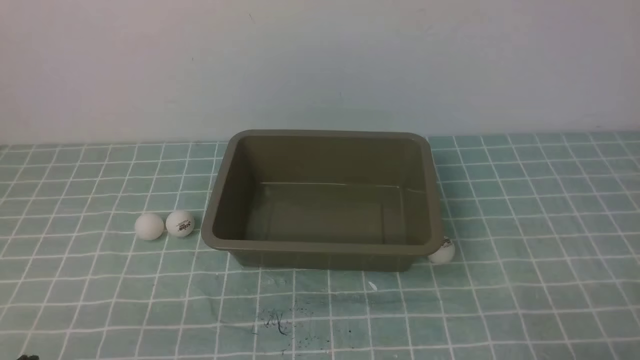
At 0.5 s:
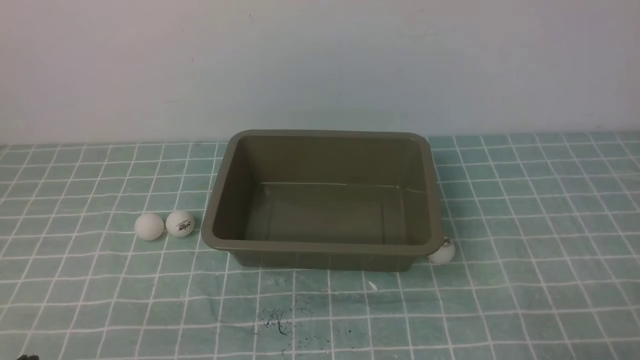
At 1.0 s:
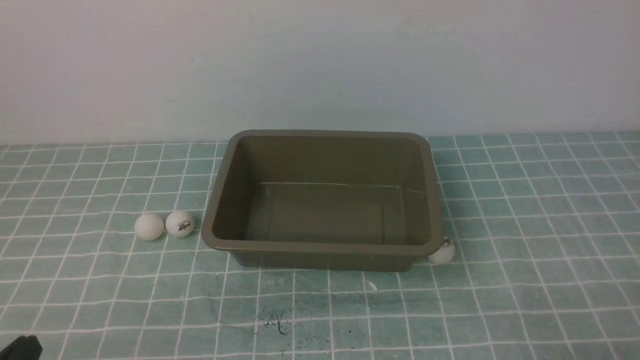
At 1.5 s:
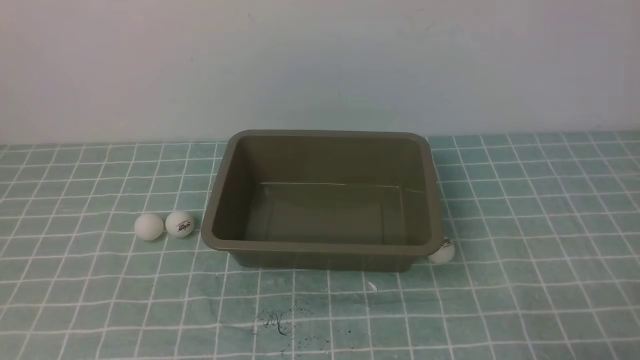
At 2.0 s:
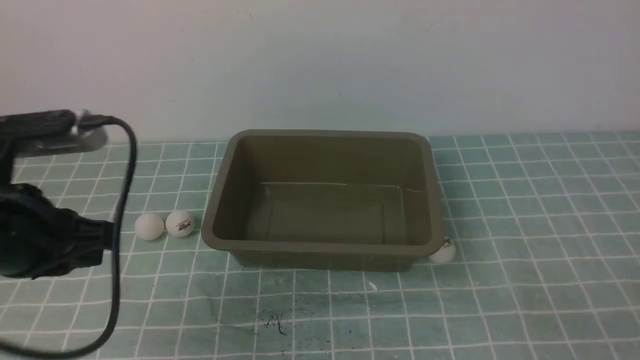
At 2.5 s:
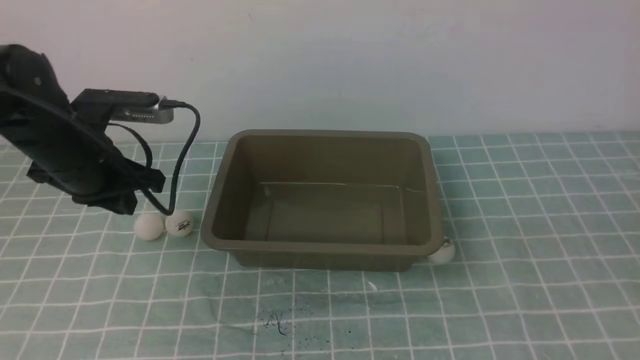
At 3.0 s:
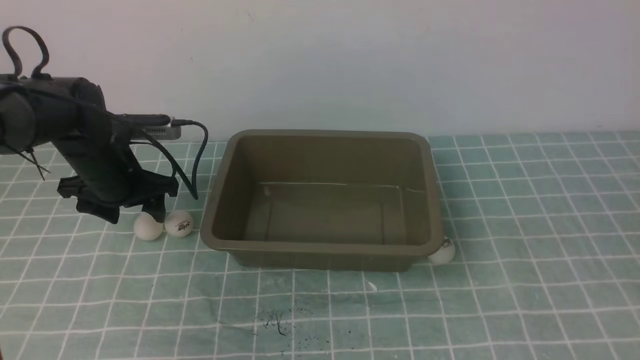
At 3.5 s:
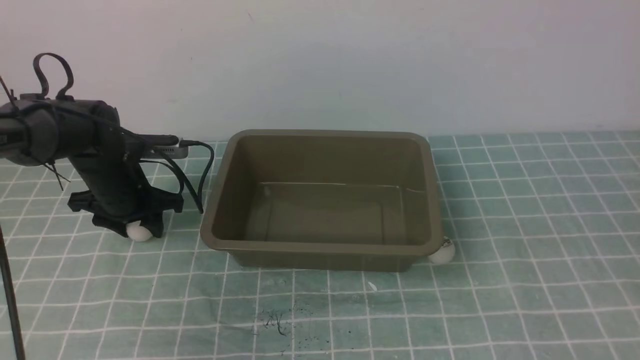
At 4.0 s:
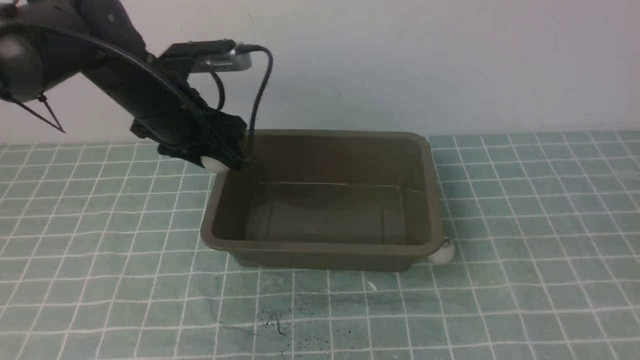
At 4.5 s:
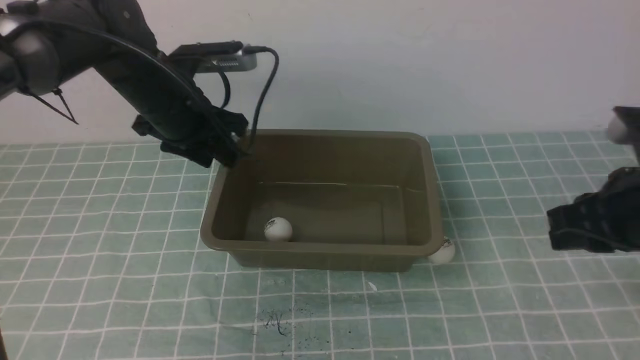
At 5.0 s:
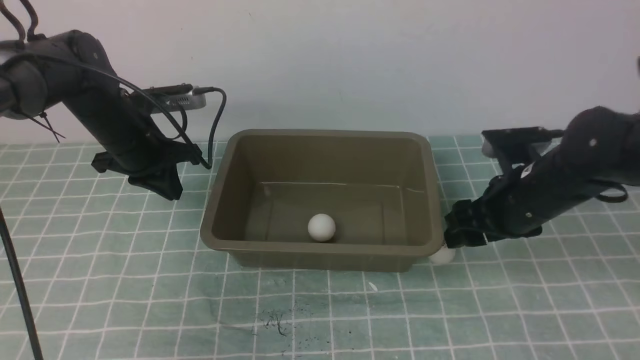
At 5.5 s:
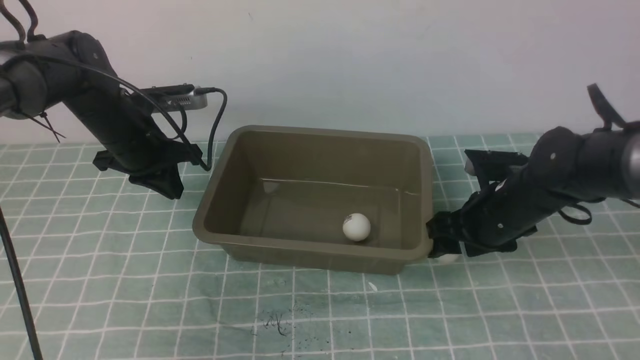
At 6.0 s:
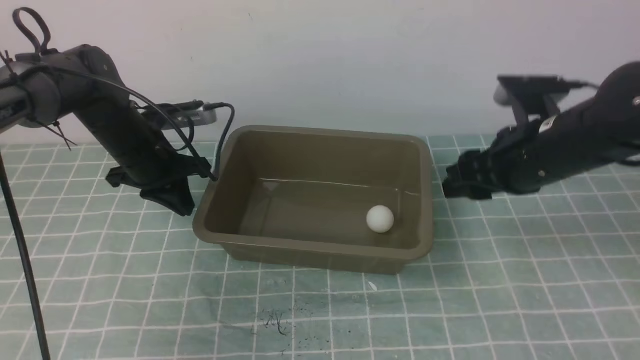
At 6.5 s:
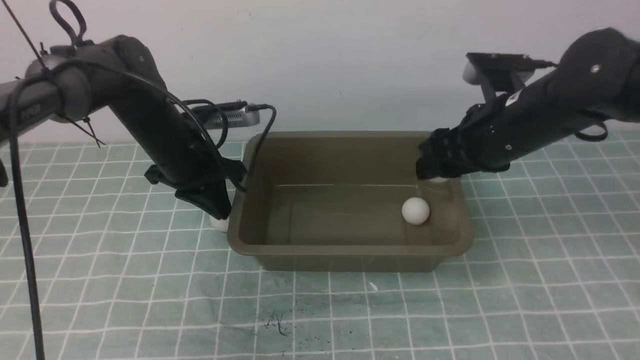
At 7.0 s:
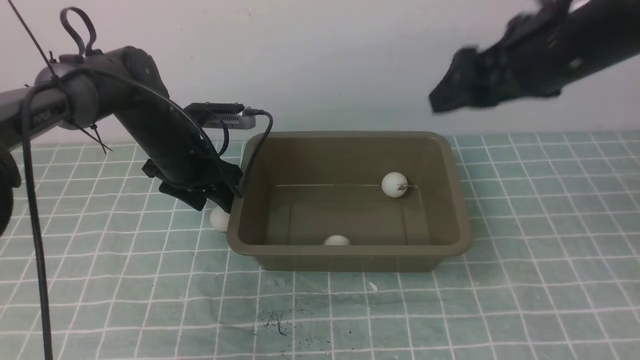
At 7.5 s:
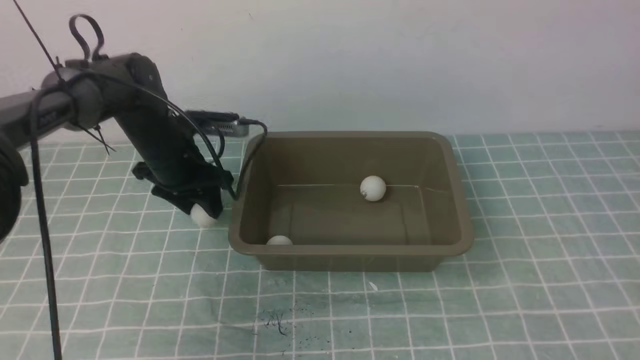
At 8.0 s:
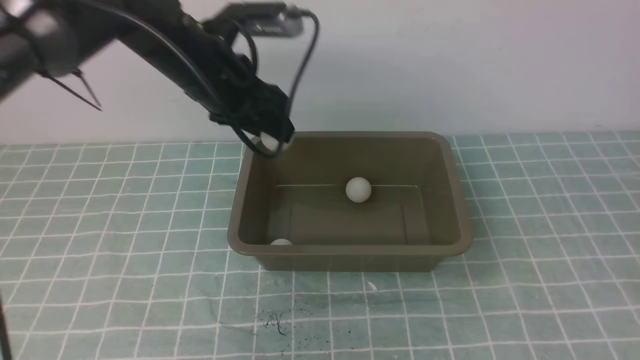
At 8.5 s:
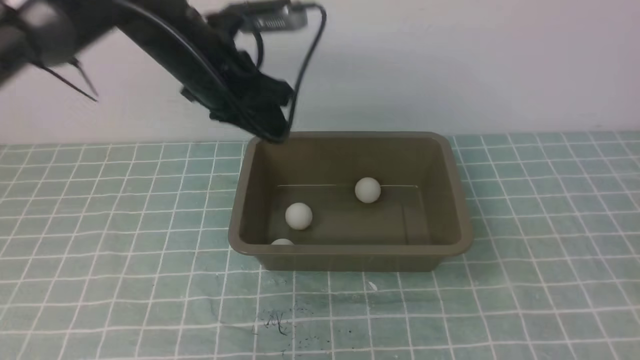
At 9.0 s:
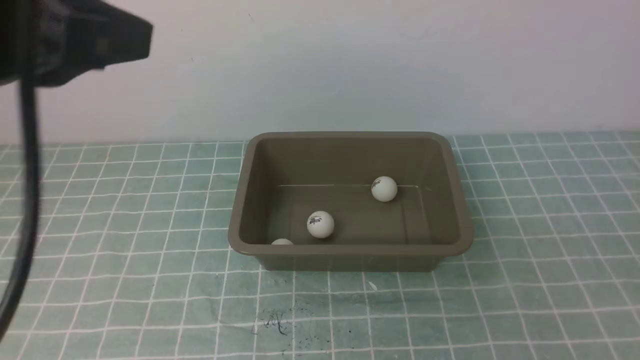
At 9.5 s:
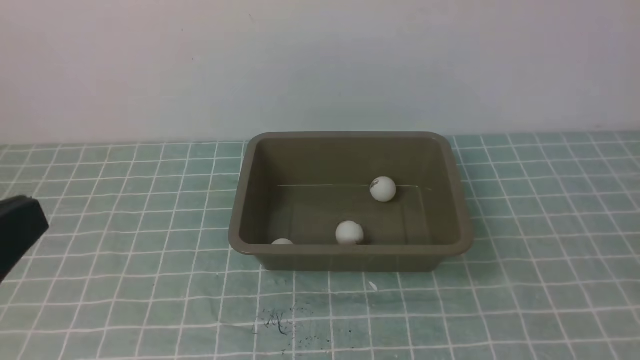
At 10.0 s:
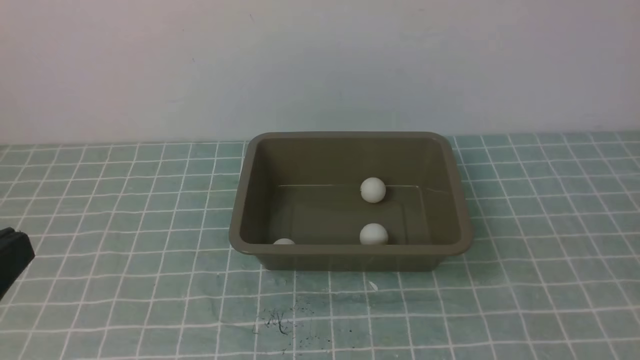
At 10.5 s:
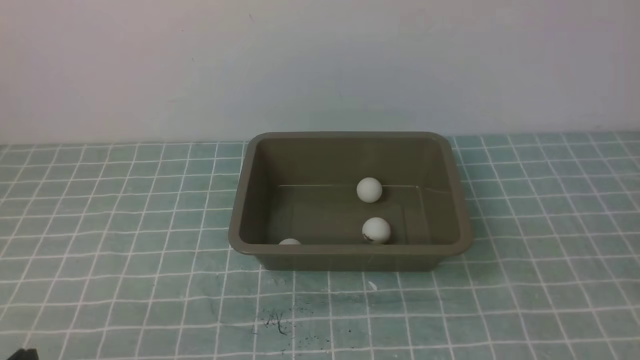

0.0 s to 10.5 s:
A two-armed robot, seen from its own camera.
Step, 0.0 to 3.5 s: use the left arm to clamp the table tennis ball closest to it.
Step, 4.0 to 4.5 s: use the left arm to put the table tennis ball into the box.
Step, 5.0 to 5.5 s: use the right arm to clamp the table tennis ball closest to it.
Step, 6.0 to 6.5 s: use the right arm to put the table tennis ball into the box.
0.0 to 2.0 s: The left gripper heads forward and upward, covering roughly 20 cm.
2.0 to 4.0 s: The left gripper heads forward, covering approximately 20 cm, and opens up. Meanwhile the right gripper moves upward, some 15 cm.
4.0 to 6.5 s: The left gripper moves downward, about 5 cm, and closes its fingers; the right gripper goes about 25 cm forward and to the left, and opens up.
6.5 to 8.5 s: The left gripper is displaced upward by about 15 cm, and opens its fingers; the right gripper shifts roughly 35 cm backward, and closes.
8.5 to 10.5 s: The left gripper goes approximately 40 cm backward, downward and to the left, and closes up.

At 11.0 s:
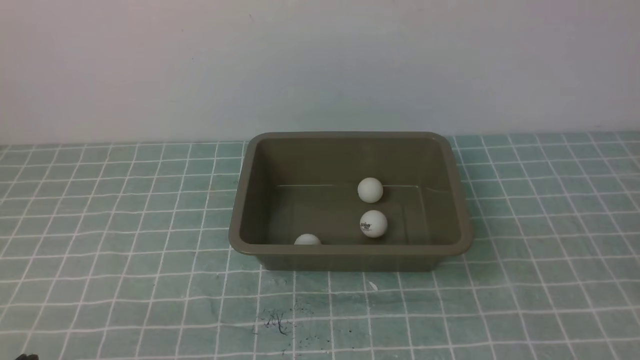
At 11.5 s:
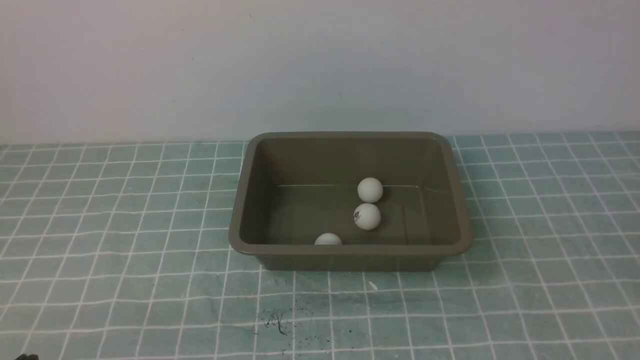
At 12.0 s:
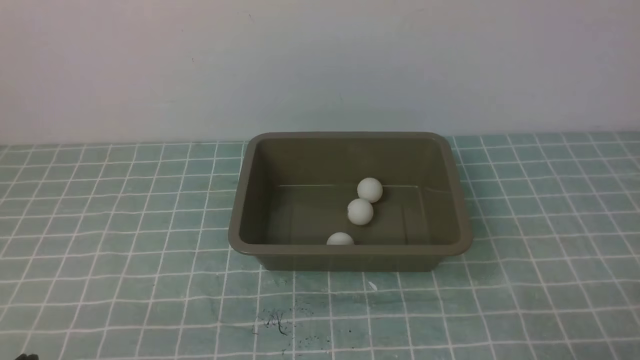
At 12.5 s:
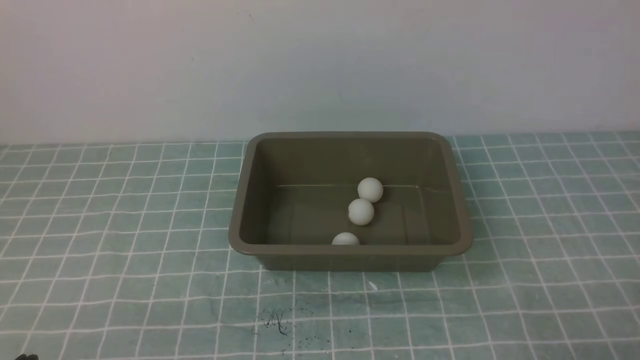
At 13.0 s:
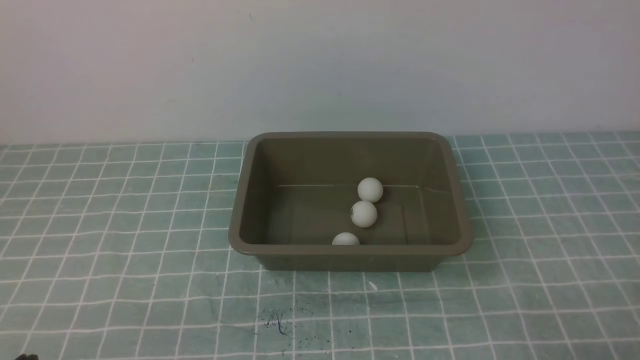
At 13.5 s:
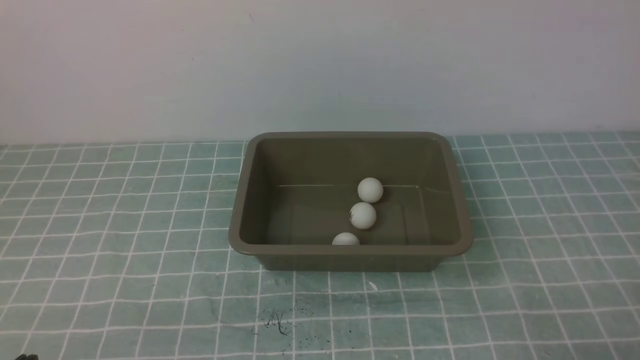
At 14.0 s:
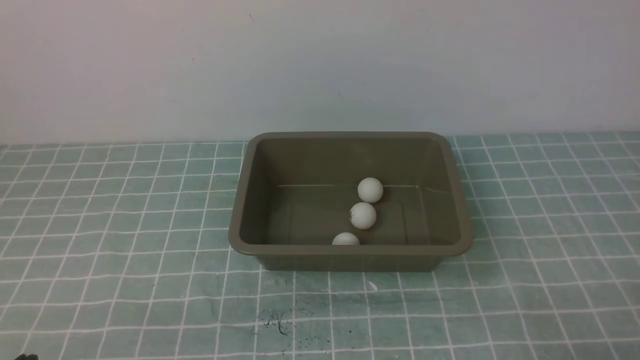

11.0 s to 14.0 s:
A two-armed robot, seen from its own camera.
12.5 to 14.0 s: The two grippers keep their place.
